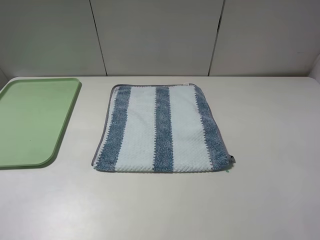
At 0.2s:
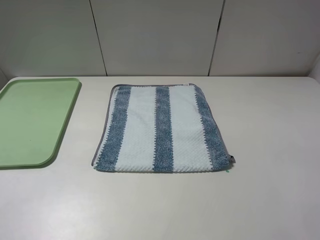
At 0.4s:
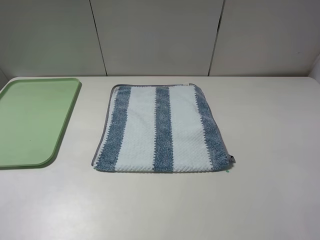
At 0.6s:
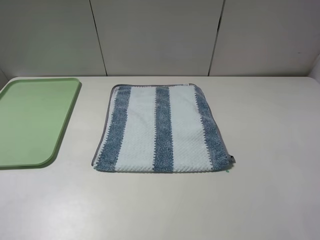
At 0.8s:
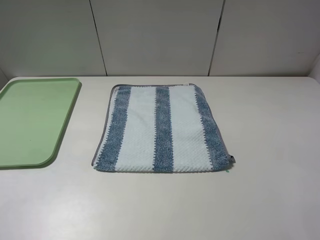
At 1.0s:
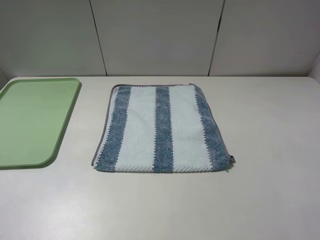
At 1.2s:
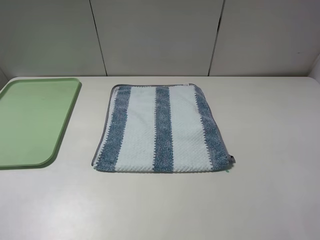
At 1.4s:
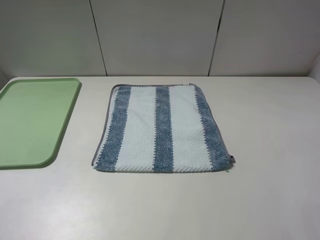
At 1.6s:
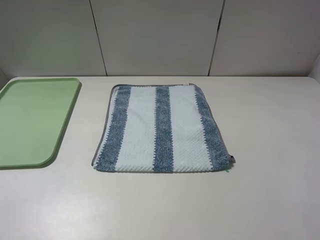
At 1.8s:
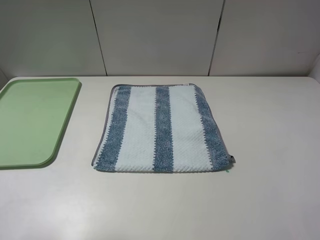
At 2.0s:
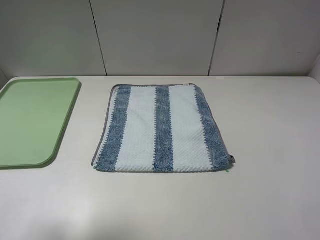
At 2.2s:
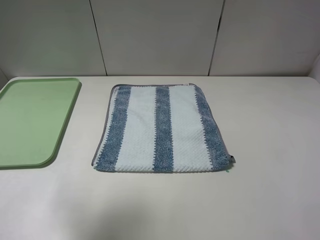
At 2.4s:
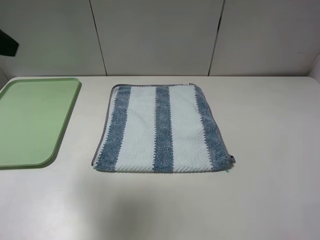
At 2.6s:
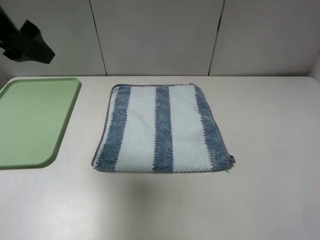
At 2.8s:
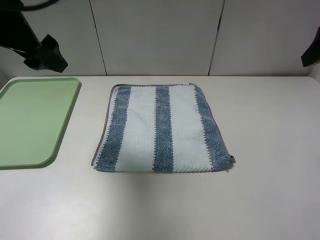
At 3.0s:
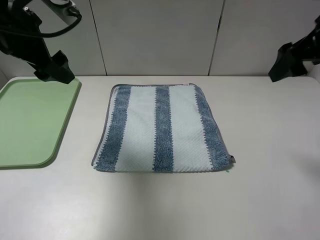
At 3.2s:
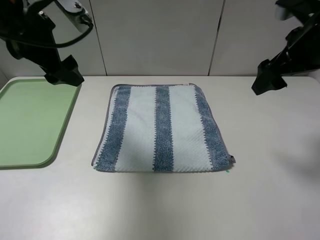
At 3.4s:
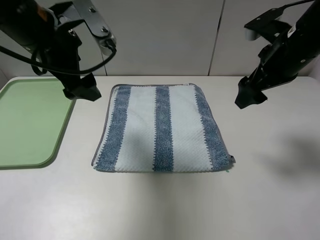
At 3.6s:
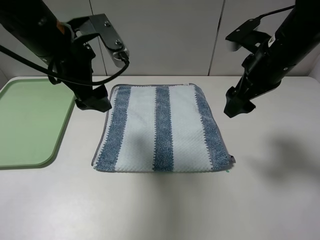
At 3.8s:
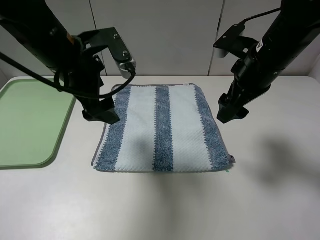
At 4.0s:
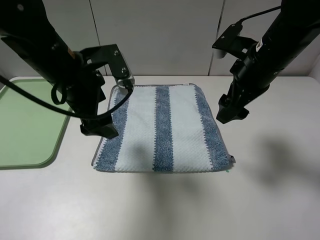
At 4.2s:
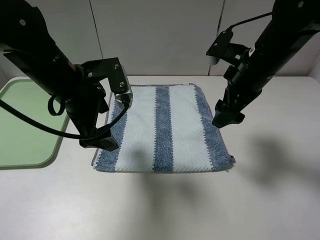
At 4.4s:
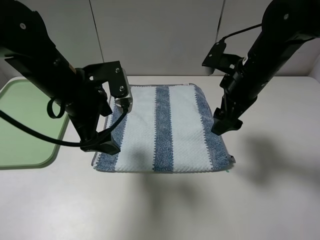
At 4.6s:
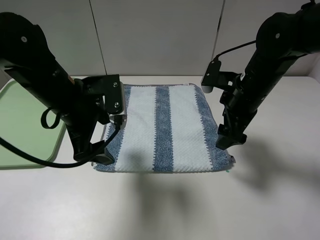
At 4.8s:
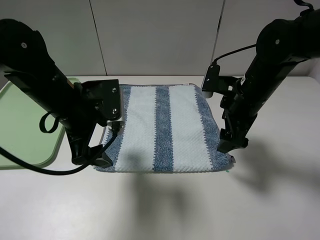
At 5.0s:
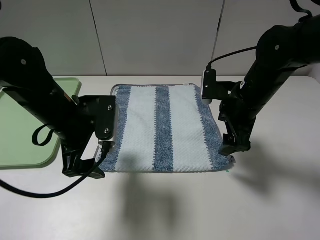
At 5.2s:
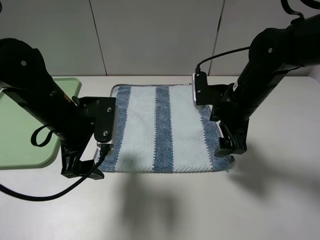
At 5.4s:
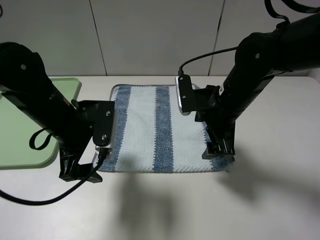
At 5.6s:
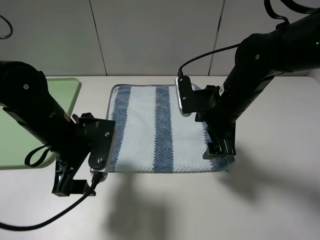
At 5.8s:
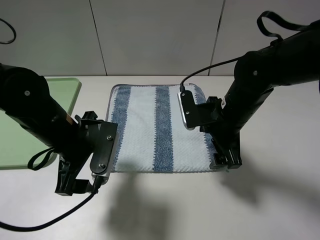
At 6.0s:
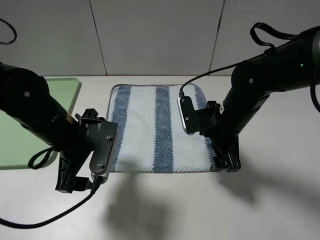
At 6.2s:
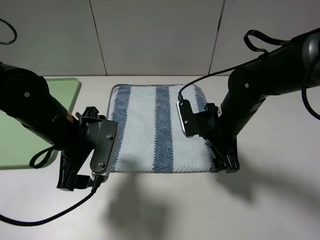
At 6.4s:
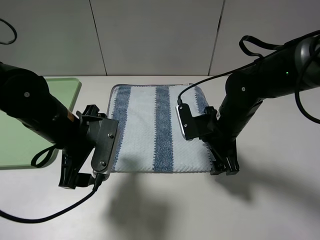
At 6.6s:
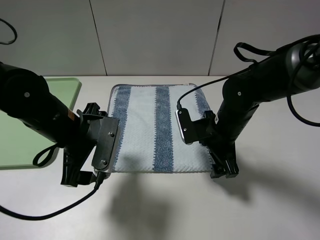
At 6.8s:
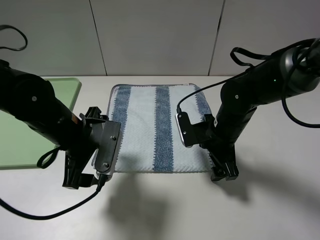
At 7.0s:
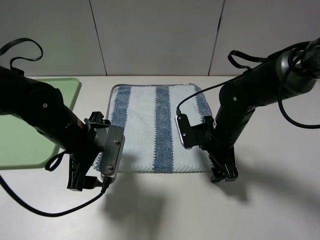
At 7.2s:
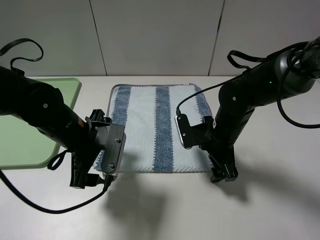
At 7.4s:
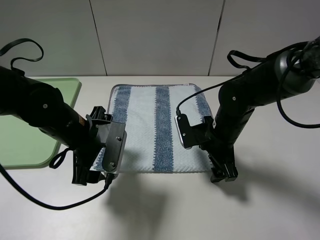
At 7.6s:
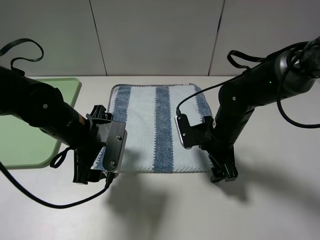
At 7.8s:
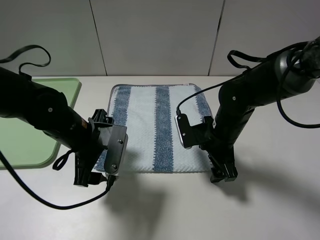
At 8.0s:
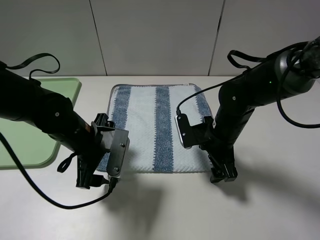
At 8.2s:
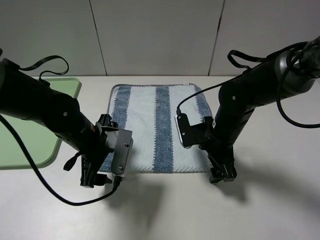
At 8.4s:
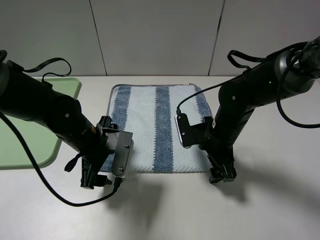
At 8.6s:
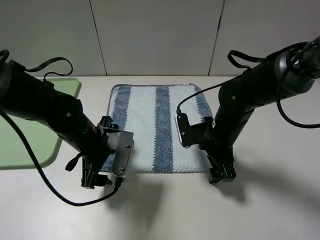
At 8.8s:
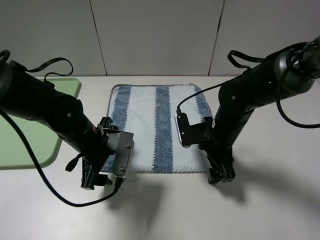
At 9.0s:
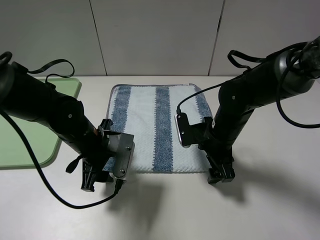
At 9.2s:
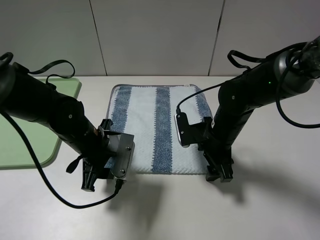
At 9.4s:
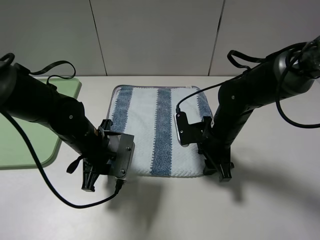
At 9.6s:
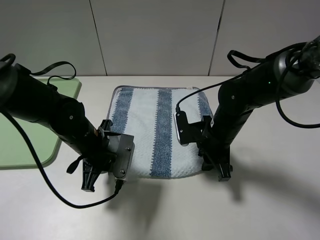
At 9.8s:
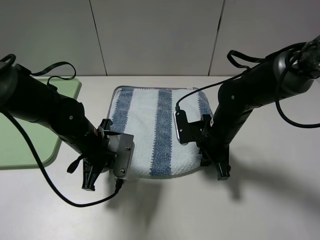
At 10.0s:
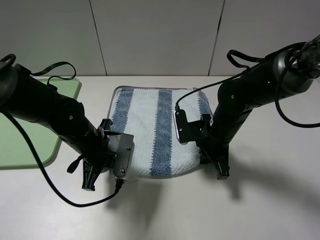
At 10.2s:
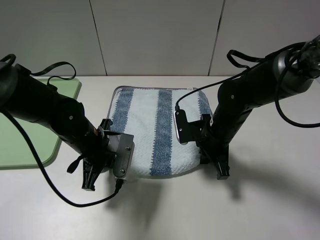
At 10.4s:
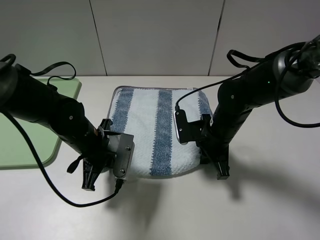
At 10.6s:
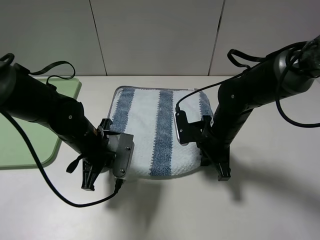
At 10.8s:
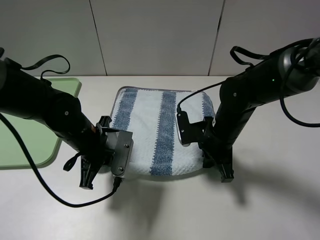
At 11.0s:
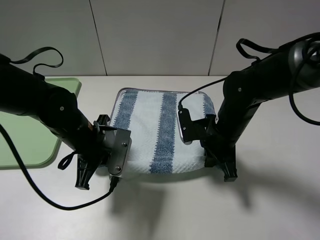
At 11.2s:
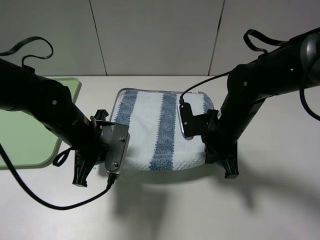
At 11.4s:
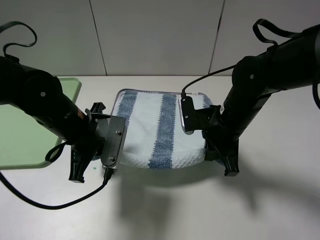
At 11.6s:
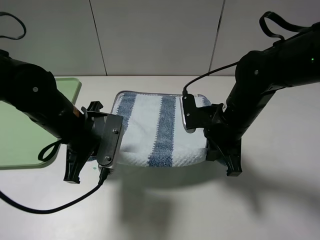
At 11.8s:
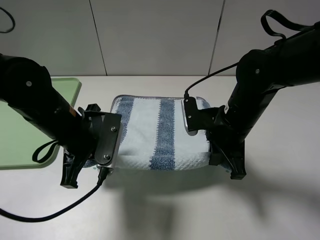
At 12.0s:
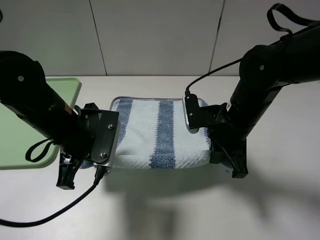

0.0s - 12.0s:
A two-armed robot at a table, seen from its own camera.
Step, 0.0s - 10.4s: Grasp the blue white towel with the left gripper.
1.6s - 3.0s: The two grippers go about 25 cm forward.
3.0s - 4.4s: The left gripper heads downward and to the right, covering some 15 cm. Meanwhile the right gripper travels downward and to the left by roughly 15 cm.
4.4s - 6.0s: Both grippers move downward, approximately 5 cm.
7.6s - 9.0s: The grippers make only small movements.
9.0s - 10.4s: The left gripper closes up. Meanwhile the right gripper closes its fingers.
10.4s - 12.0s: Both grippers move upward, about 10 cm.

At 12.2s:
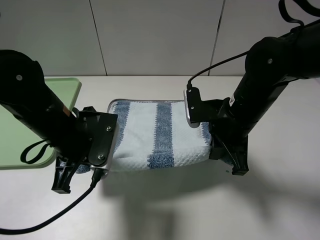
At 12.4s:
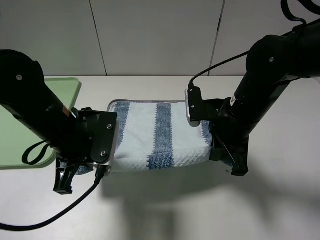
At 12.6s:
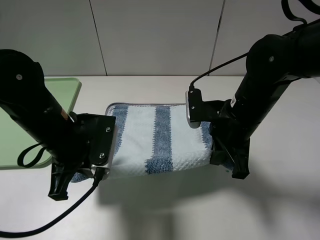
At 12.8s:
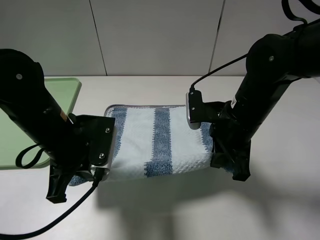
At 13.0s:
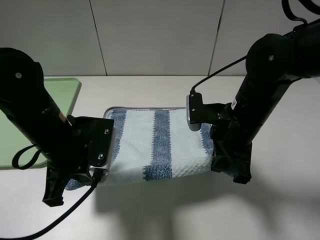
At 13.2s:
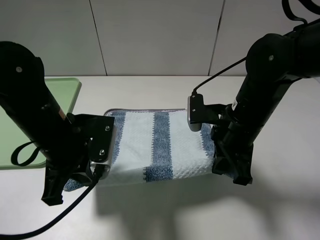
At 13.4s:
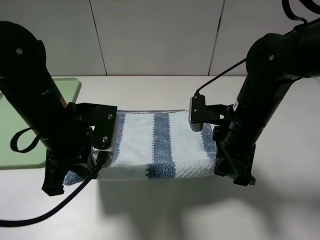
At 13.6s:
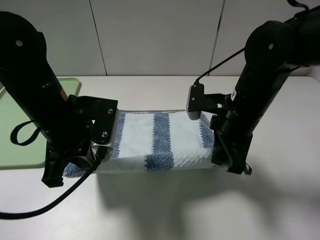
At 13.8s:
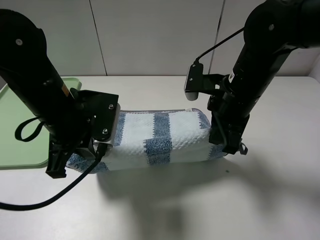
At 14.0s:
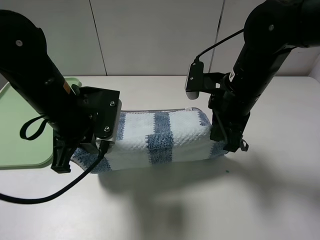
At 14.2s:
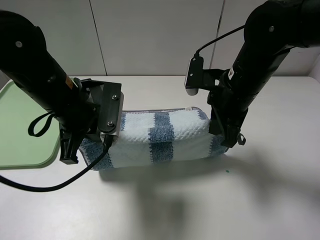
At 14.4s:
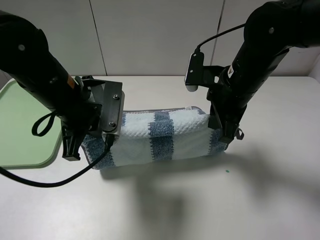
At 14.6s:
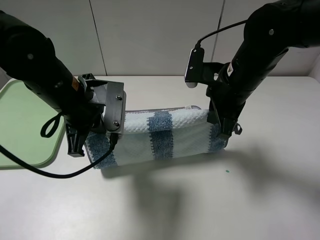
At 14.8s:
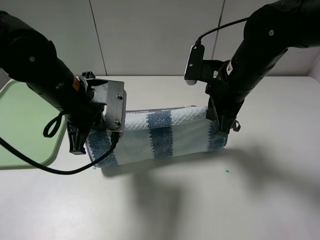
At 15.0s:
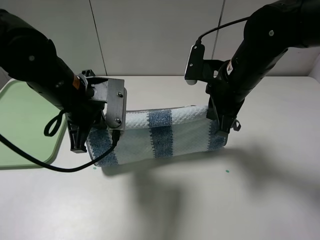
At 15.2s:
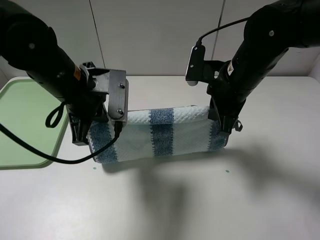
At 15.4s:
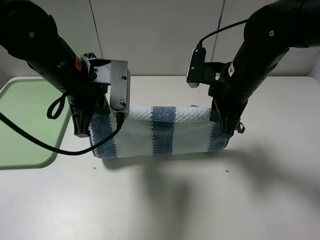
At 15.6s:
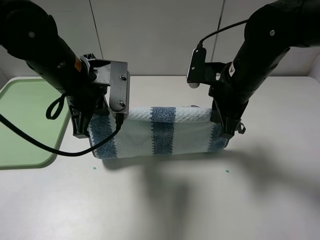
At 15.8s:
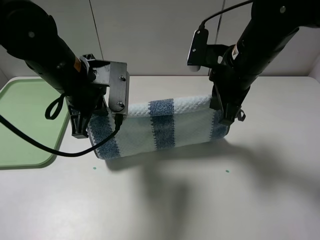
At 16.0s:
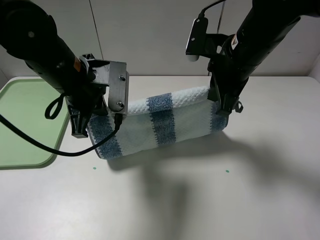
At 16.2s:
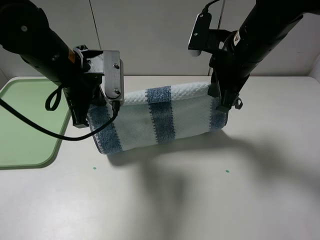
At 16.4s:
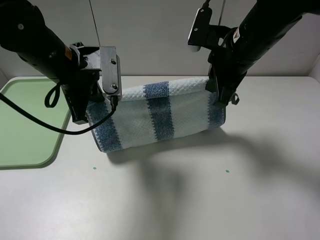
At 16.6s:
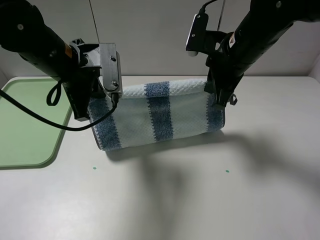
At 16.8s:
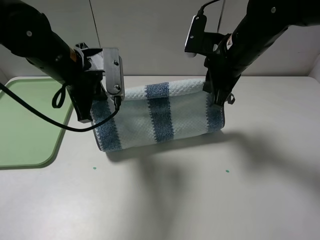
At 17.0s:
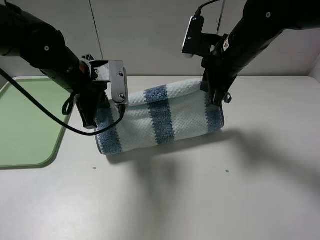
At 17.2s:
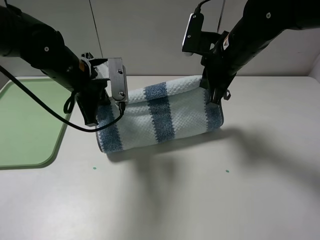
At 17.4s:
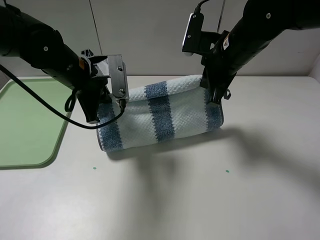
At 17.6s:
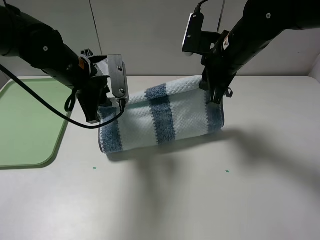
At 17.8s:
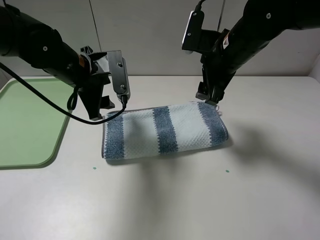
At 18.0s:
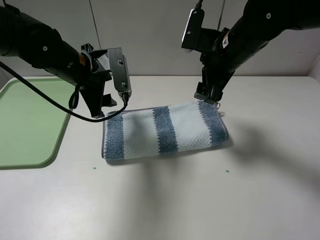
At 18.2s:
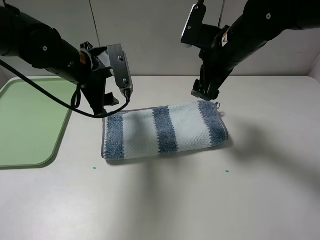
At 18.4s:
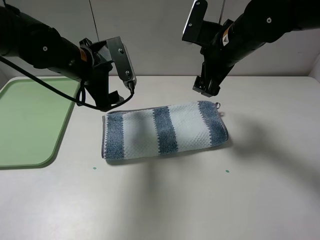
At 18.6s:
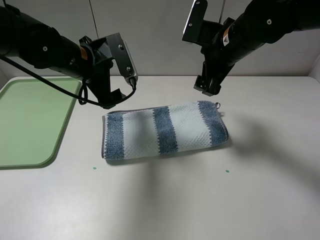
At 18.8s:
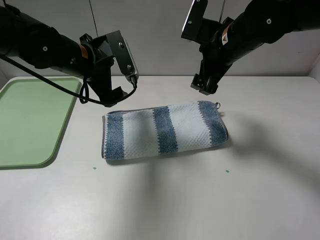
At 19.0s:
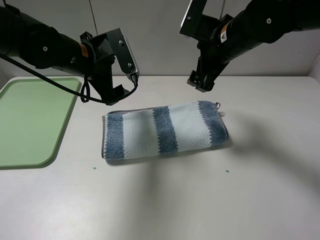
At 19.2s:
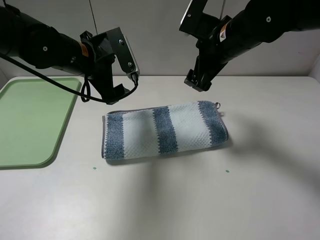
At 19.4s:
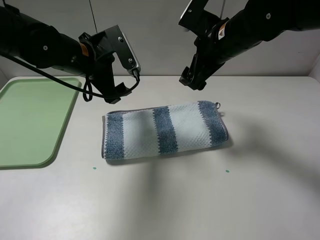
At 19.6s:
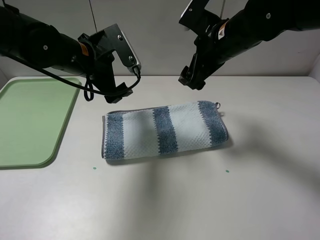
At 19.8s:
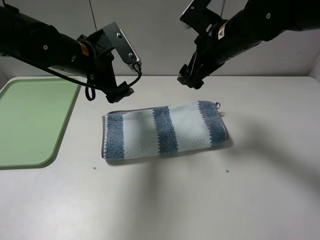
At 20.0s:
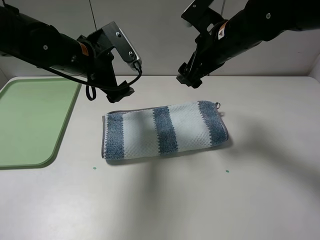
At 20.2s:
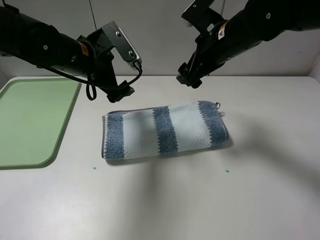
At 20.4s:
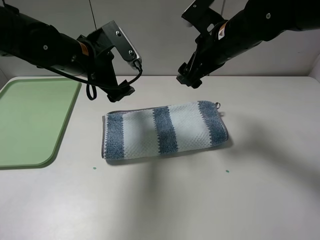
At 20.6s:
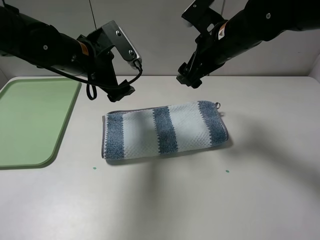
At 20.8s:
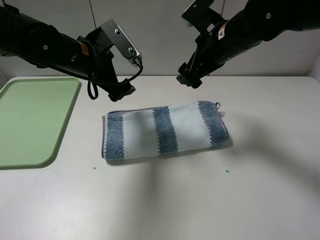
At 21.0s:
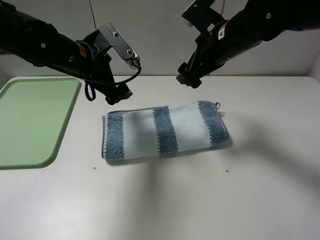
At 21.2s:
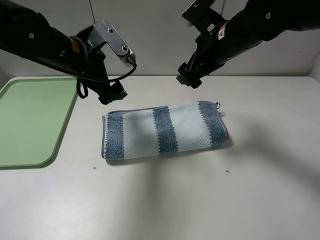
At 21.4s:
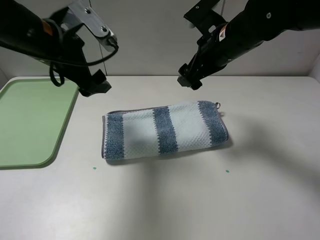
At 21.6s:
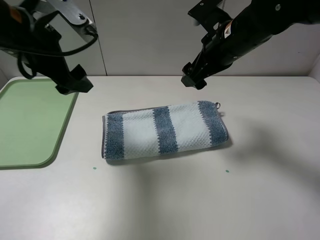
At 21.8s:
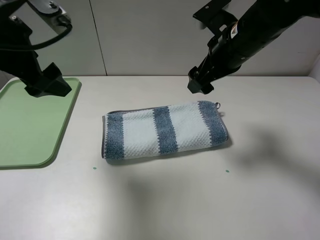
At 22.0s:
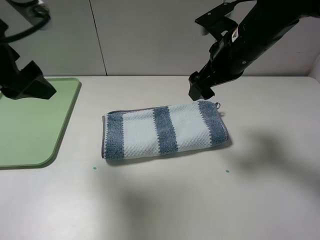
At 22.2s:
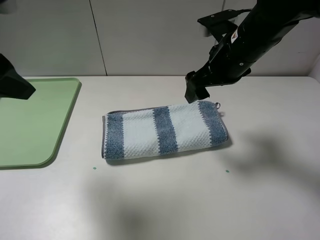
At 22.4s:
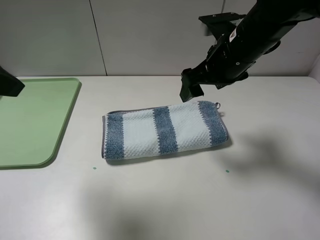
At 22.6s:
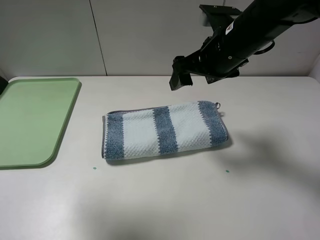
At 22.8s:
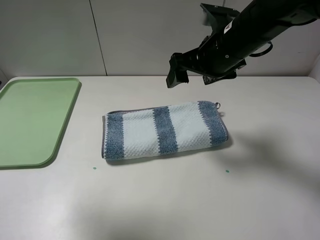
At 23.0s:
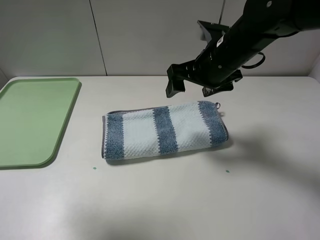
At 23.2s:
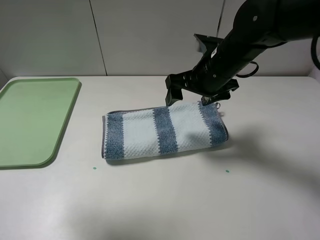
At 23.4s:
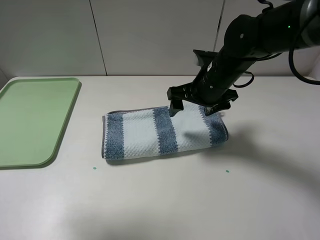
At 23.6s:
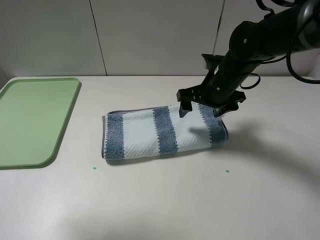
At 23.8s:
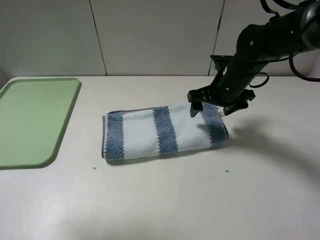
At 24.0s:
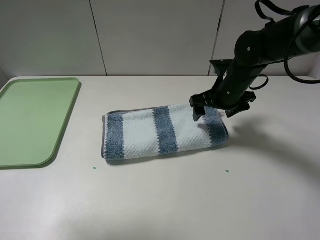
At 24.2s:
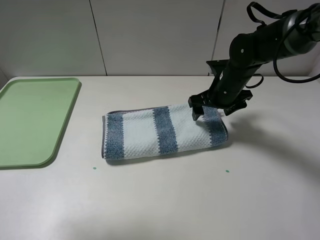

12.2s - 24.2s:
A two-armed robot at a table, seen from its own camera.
Step, 12.2s - 18.4s: Fold the blue white towel upwards with the left gripper.
16.6s - 18.2s: The right gripper opens up. The left gripper opens.
18.2s - 19.8s: The grippers stay close to where they were, moving slightly.
19.8s - 21.2s: The grippers make only small movements.
21.2s - 22.6s: The left gripper moves backward, upward and to the left, about 25 cm.
22.6s - 24.2s: The right gripper moves downward and forward, about 15 cm.
